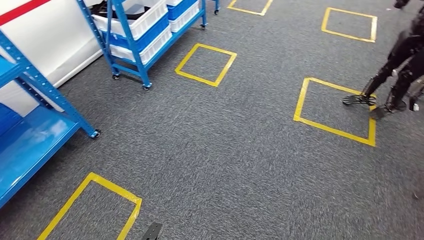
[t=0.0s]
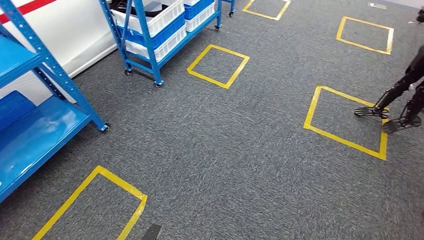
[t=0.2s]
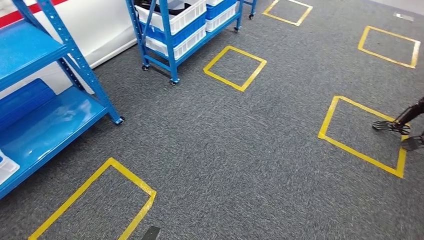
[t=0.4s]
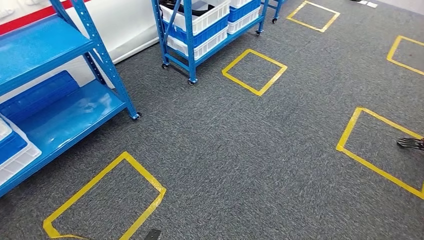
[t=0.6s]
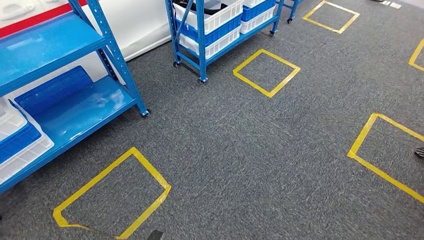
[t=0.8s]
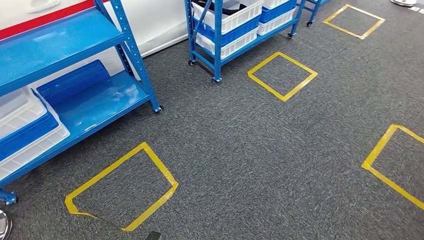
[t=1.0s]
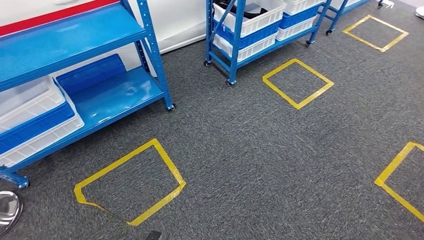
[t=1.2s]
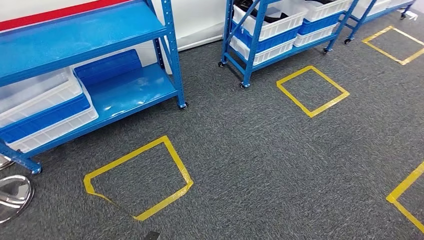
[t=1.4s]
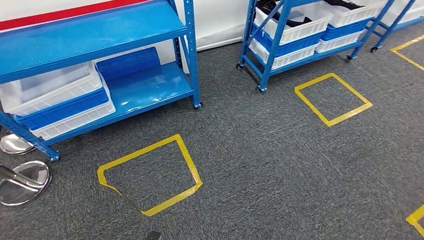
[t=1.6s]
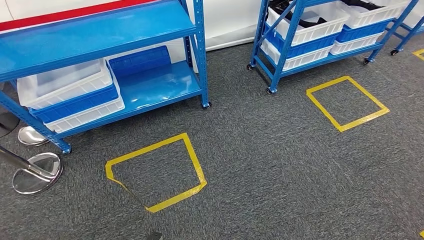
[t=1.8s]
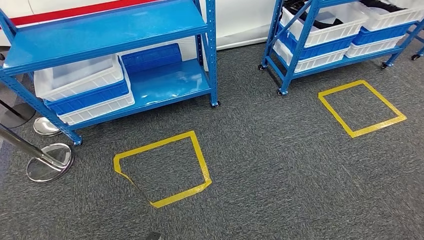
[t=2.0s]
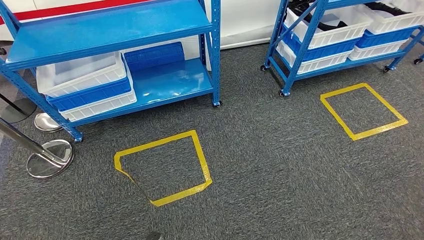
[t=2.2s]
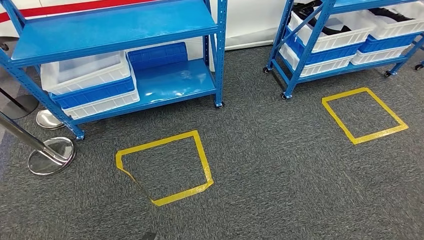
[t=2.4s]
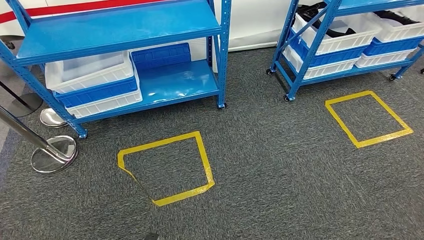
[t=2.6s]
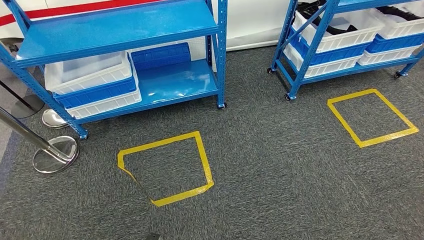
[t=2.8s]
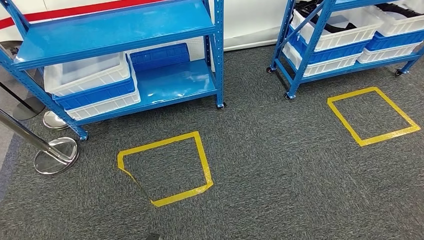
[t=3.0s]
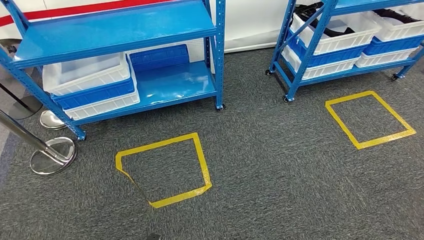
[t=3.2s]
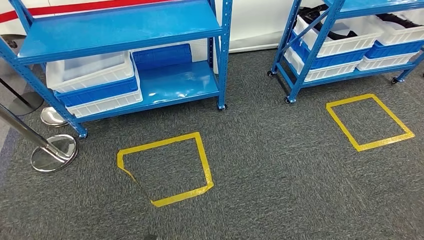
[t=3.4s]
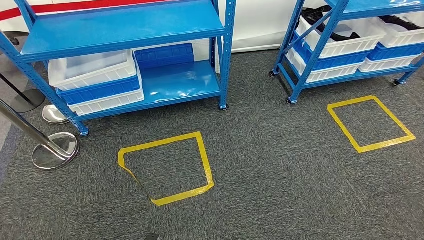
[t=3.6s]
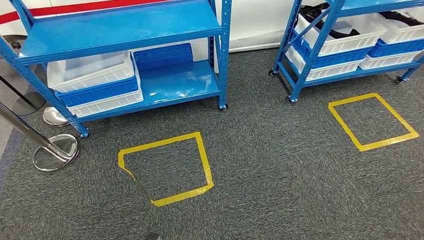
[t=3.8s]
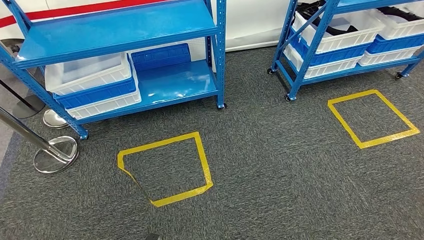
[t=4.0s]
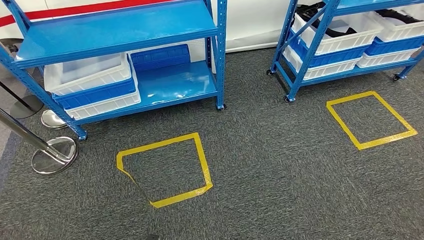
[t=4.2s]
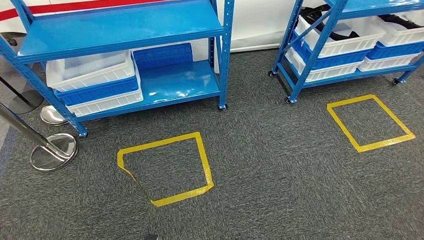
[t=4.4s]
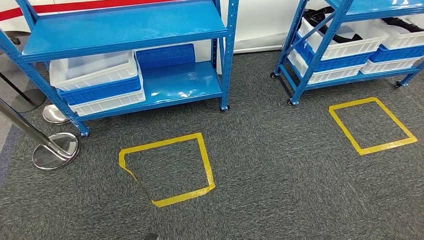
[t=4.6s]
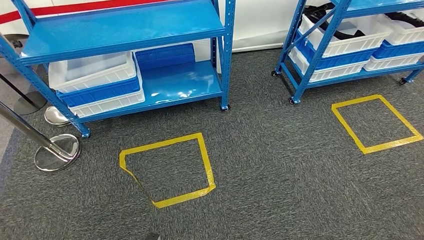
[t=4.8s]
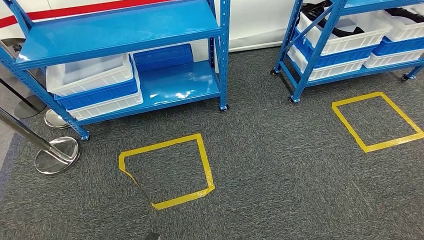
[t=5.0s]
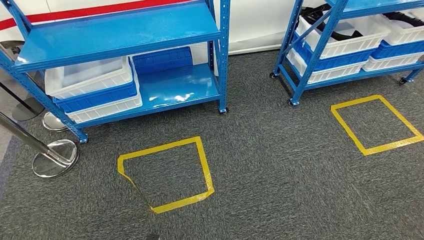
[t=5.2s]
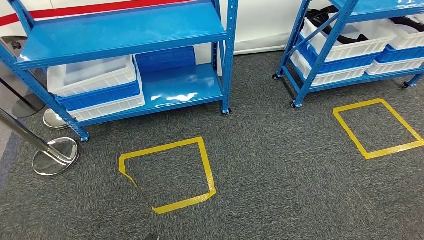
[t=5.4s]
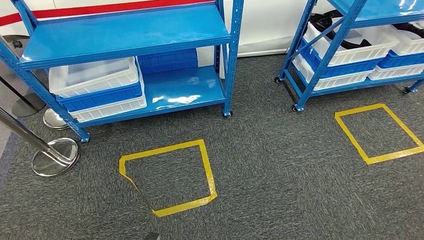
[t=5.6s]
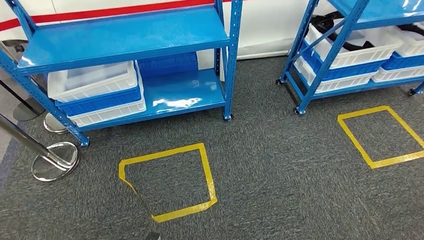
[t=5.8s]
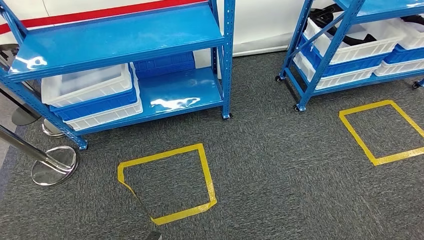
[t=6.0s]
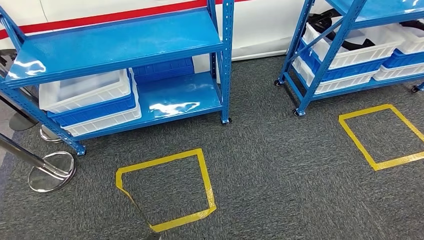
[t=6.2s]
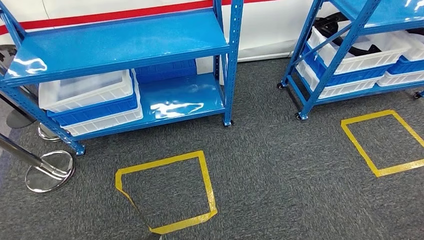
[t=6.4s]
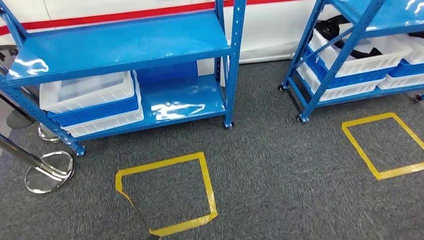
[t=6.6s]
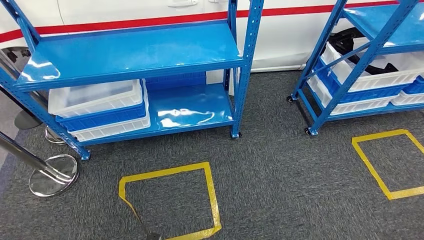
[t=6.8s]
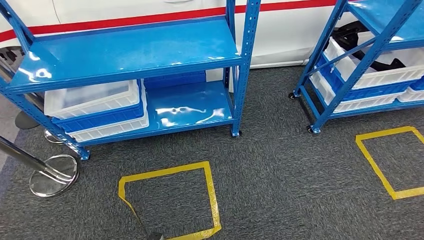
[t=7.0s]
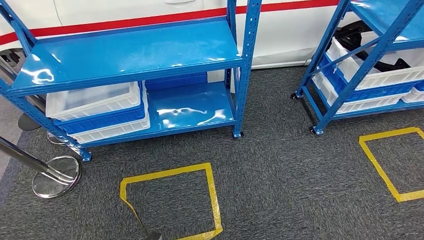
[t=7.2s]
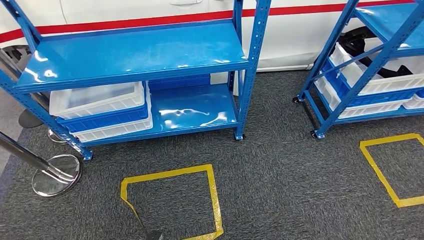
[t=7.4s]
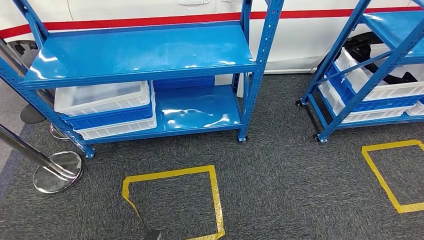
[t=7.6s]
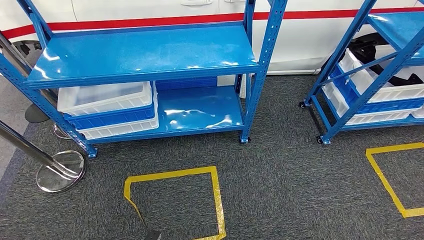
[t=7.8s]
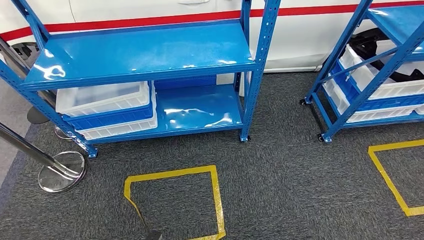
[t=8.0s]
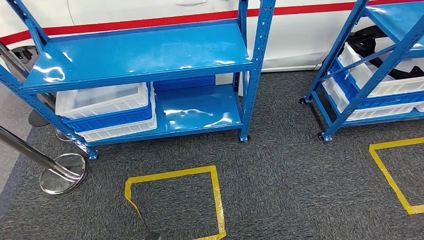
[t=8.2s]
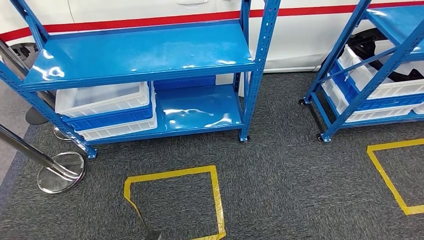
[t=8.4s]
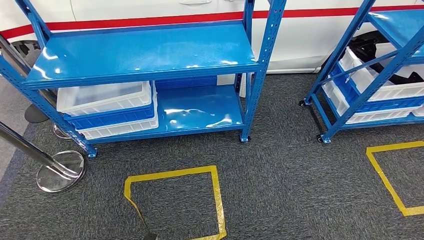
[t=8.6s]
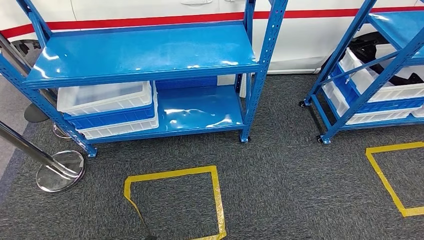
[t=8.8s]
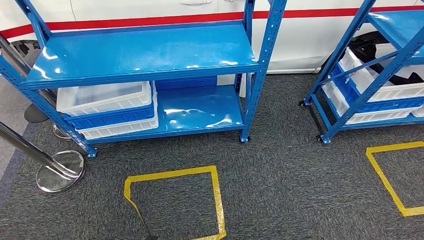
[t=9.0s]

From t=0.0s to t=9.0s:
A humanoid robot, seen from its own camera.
Step, from t=0.0s to t=9.0s: Move to the initial position of the shelf.
From t=7.6s to t=9.0s: The hands make only small movements.
